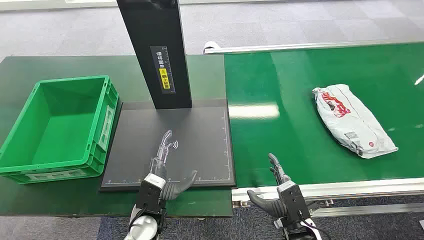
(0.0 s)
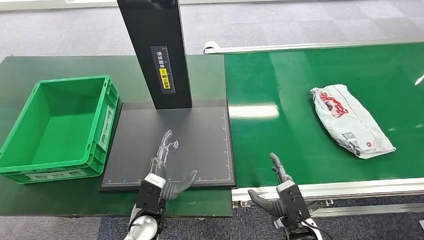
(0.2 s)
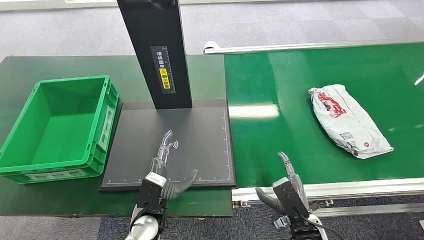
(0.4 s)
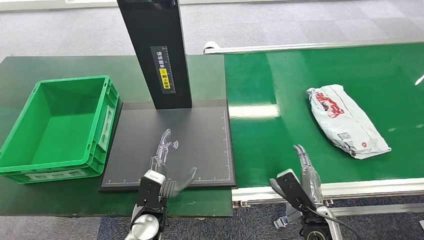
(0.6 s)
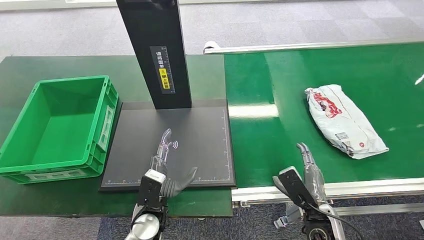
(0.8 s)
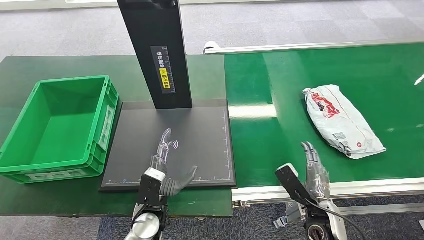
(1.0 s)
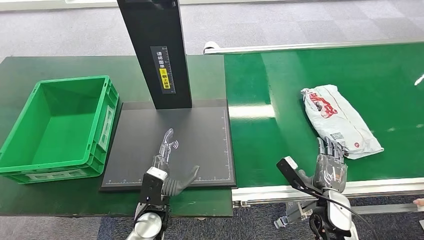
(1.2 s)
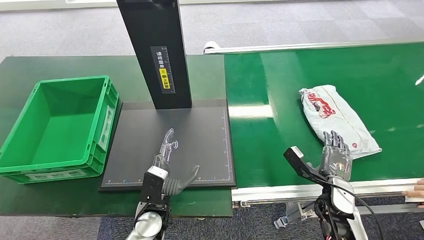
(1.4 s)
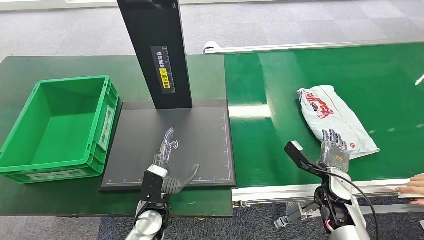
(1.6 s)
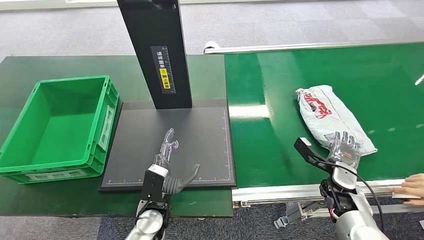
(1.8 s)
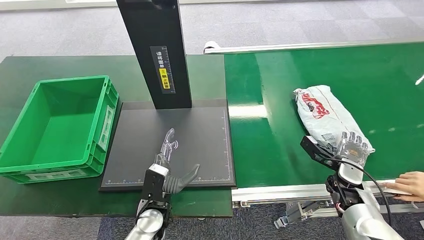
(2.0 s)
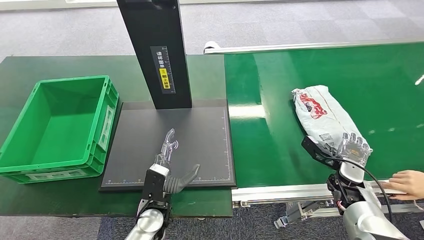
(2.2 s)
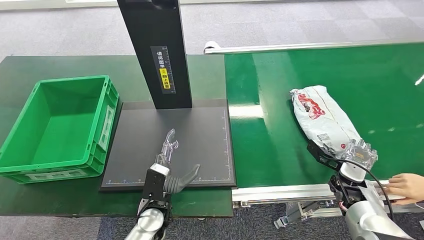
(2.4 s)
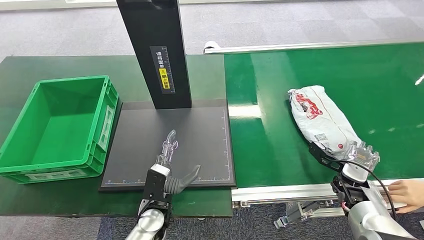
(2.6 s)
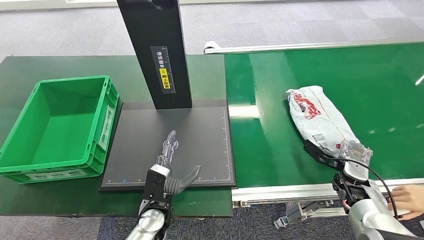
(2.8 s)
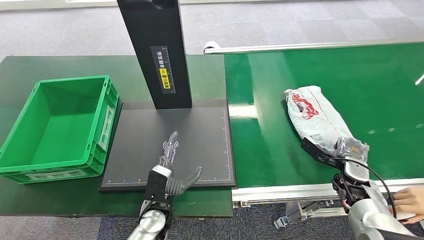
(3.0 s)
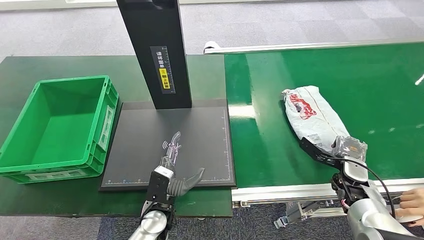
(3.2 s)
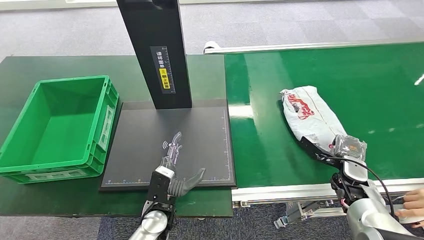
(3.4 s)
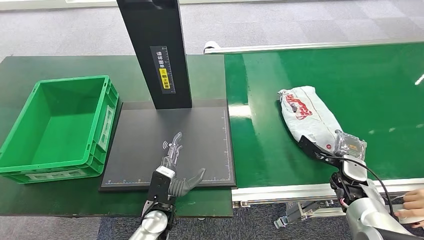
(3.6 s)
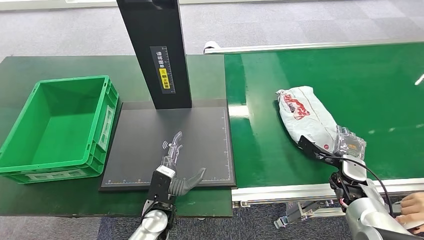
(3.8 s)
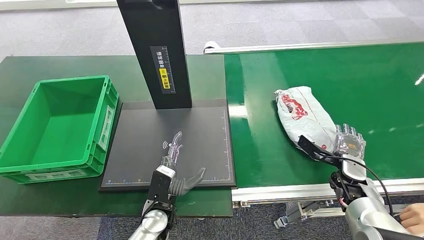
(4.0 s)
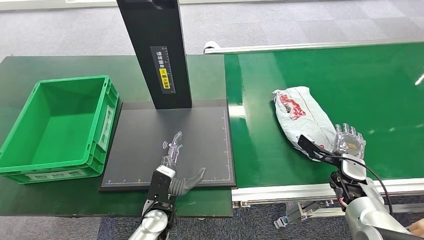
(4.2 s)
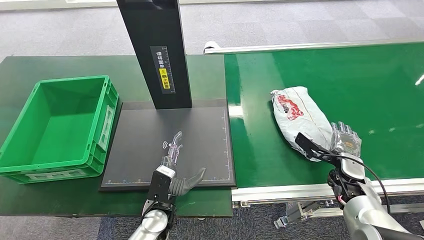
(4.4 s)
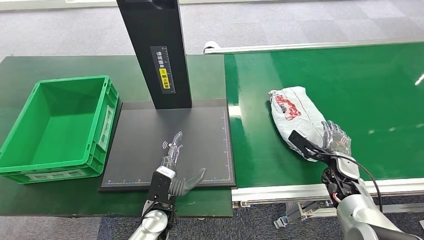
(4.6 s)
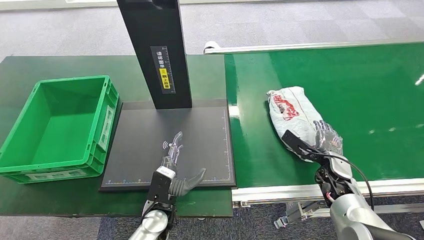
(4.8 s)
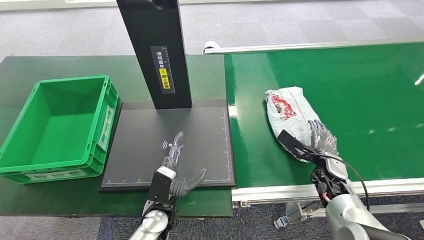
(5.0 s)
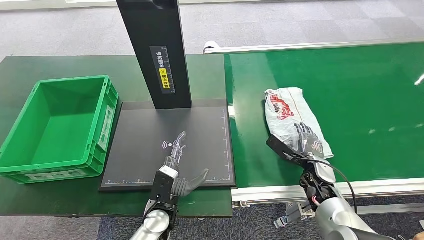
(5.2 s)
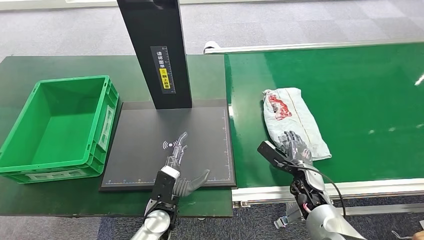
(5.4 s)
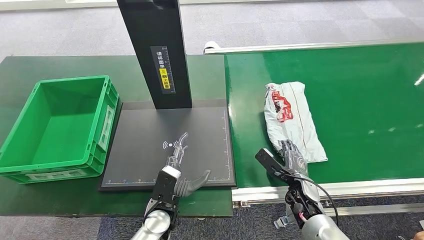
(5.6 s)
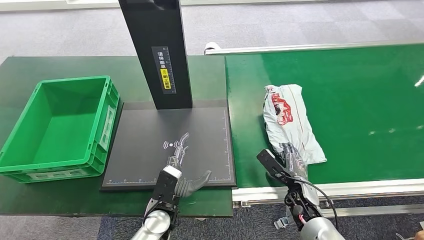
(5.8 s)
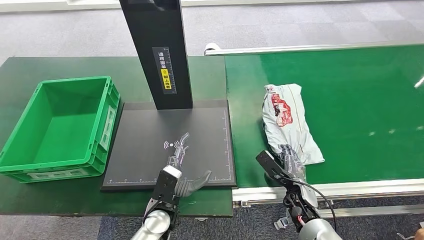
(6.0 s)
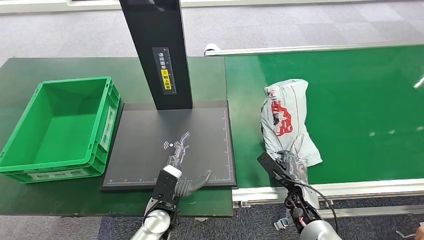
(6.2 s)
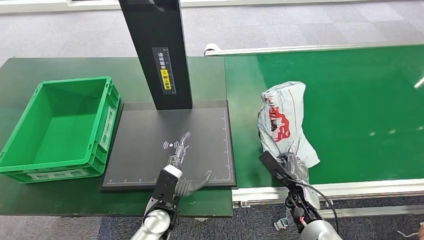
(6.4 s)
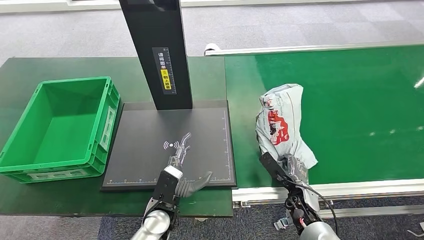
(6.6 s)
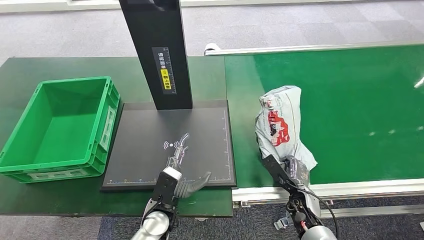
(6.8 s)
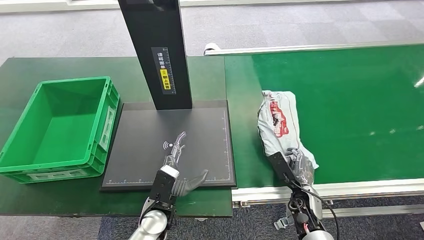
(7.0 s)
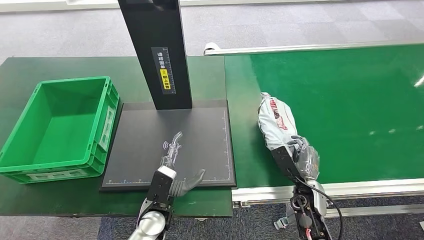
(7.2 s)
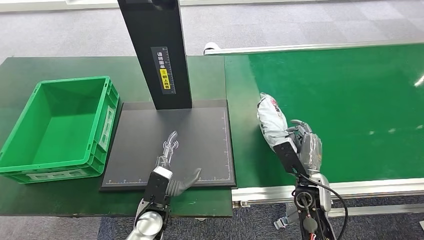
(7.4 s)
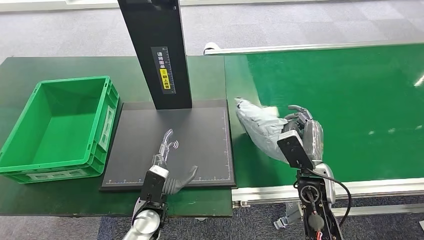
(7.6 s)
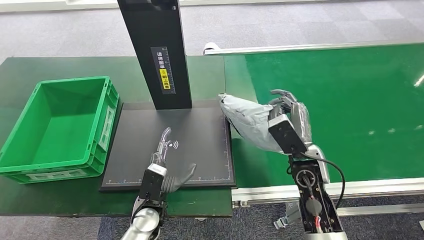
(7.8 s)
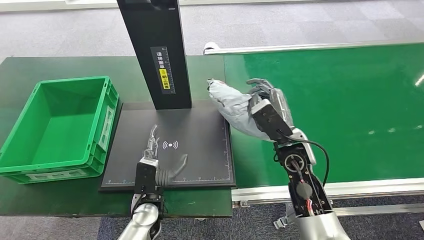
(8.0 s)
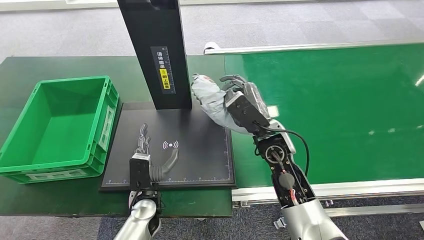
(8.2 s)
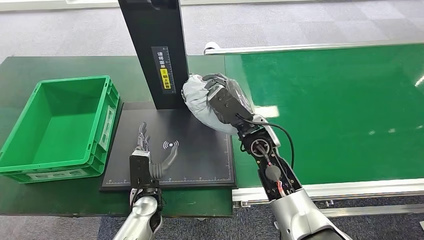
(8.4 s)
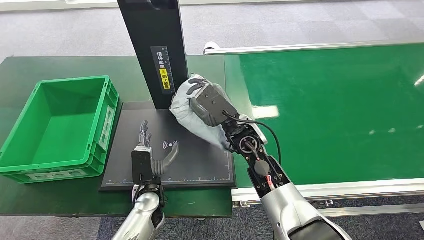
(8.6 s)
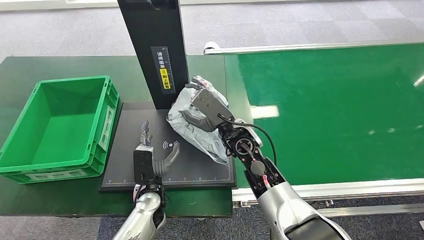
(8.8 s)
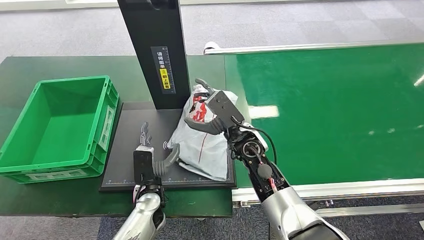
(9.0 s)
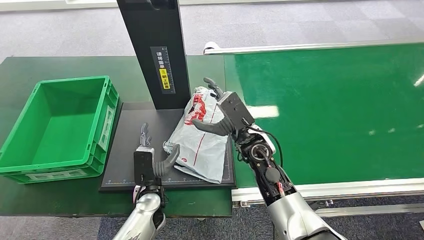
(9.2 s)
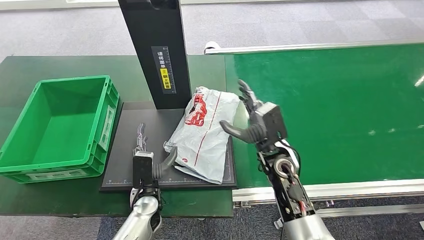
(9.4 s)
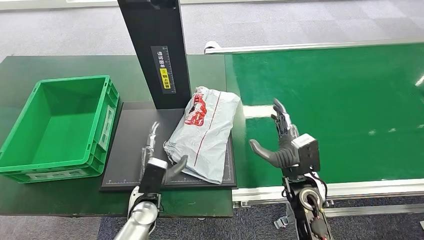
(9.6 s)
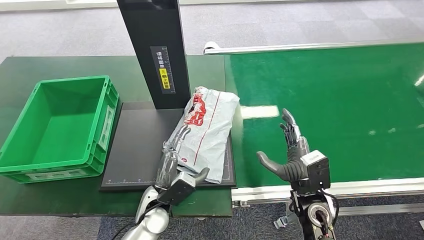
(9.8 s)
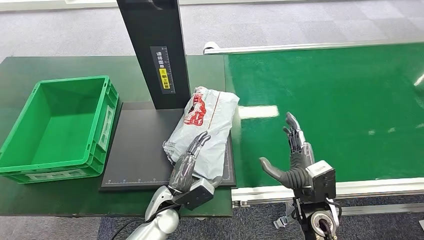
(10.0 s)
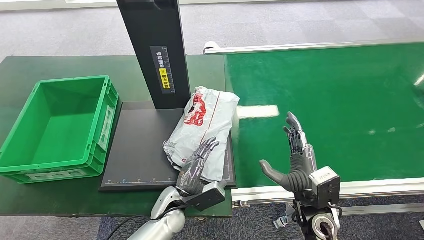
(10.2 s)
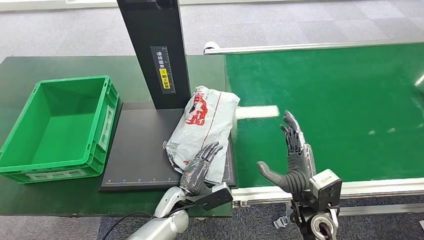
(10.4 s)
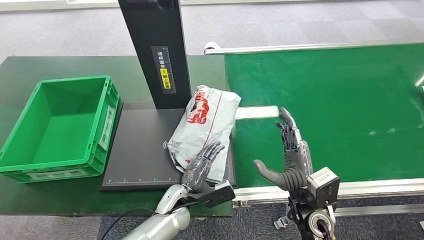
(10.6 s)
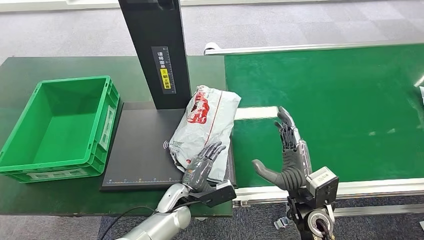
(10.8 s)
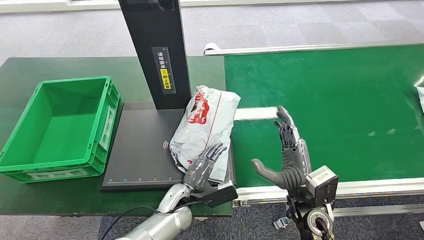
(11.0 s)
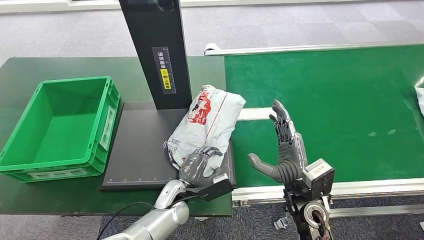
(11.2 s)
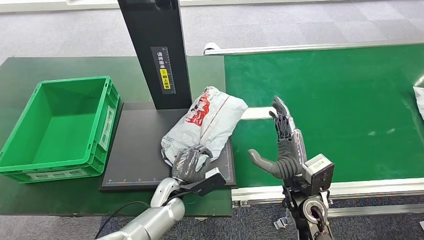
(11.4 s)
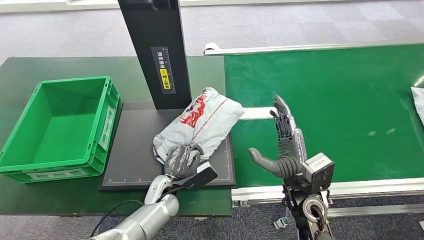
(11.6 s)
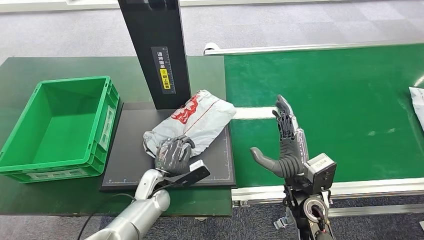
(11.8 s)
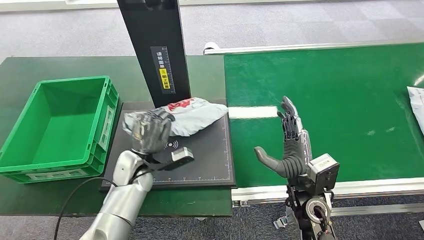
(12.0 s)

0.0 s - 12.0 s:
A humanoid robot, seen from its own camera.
Step, 0.0 s - 8.4 s: Pick up the package from the conveyor belt.
Step, 8.8 s - 10.6 s: Place the package onto the inbound machine.
1.6 s - 3.0 s: The right hand moves to the right, roughly 5 cm.
3.0 s - 4.4 s: The hands move only a little.
6.0 s - 7.6 s: The right hand goes roughly 15 cm upward.
7.6 s - 9.0 s: The right hand travels to the left and forward by some 15 cm.
9.0 s - 10.4 s: The right hand moves backward and to the right, some 20 cm; the left hand moves roughly 5 cm.
10.4 s - 12.0 s: The left hand travels to the left, upward and forward by some 15 cm.

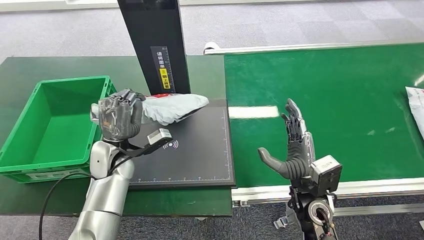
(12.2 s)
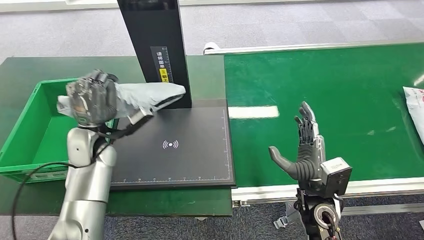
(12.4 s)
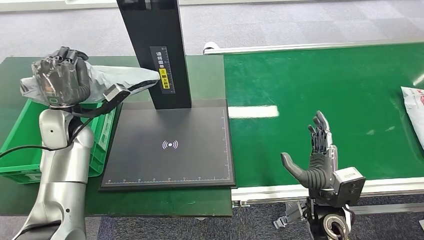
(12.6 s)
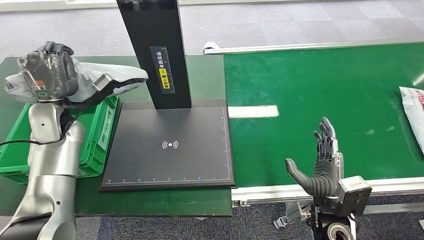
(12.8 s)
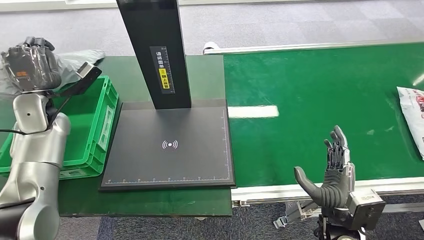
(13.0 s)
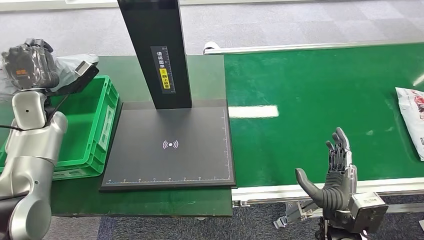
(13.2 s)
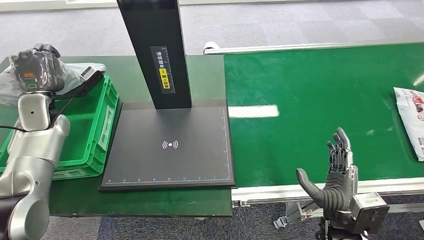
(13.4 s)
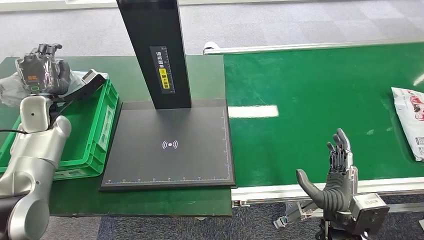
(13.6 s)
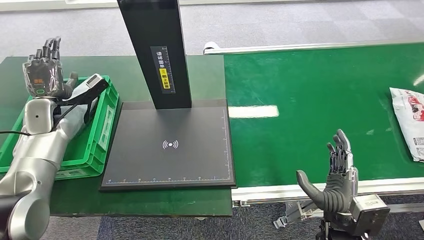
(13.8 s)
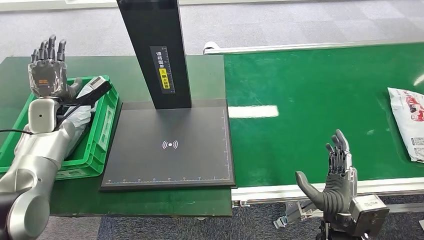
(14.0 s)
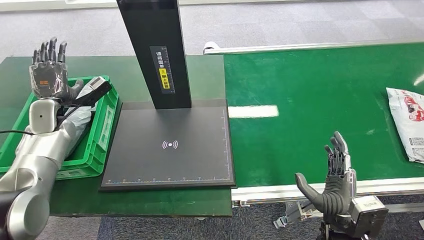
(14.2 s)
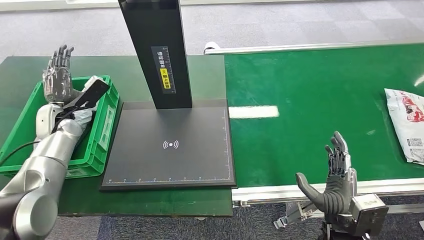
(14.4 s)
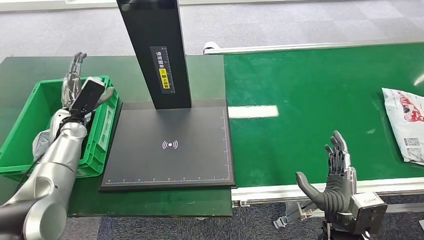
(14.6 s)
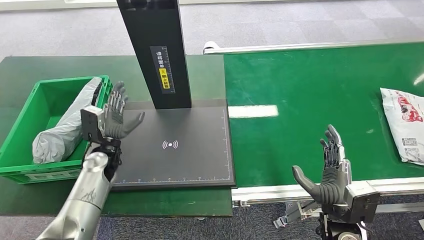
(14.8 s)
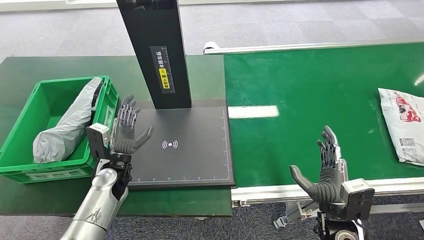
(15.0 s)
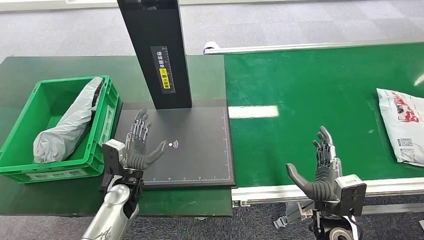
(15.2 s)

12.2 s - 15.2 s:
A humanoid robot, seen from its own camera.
Step, 13.2 s - 15.2 s: Place the package into the parcel locker.
13.8 s - 15.2 s: The left hand travels to the right, downward and backward by roughly 30 cm.
